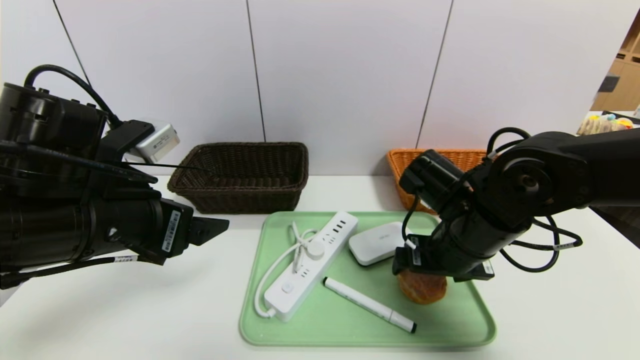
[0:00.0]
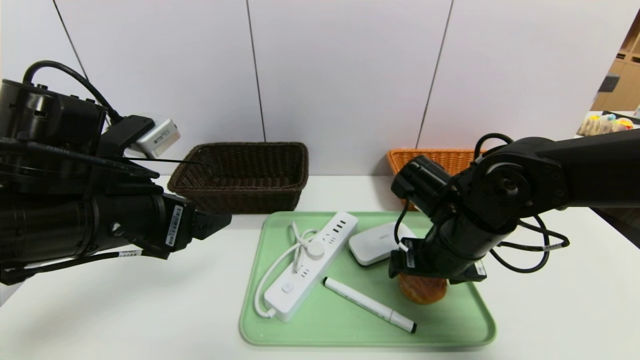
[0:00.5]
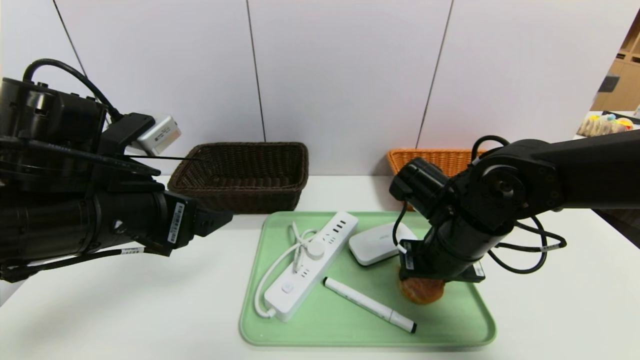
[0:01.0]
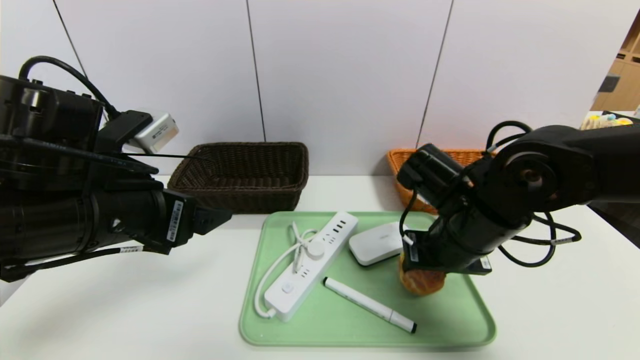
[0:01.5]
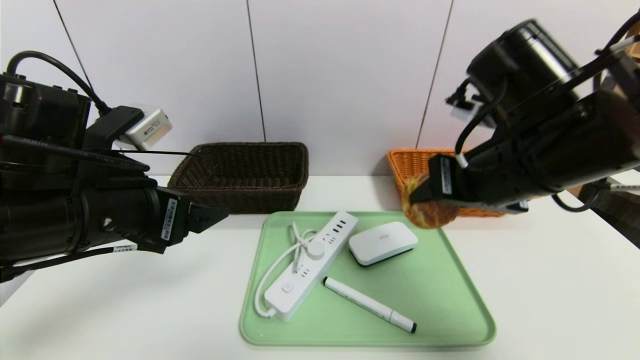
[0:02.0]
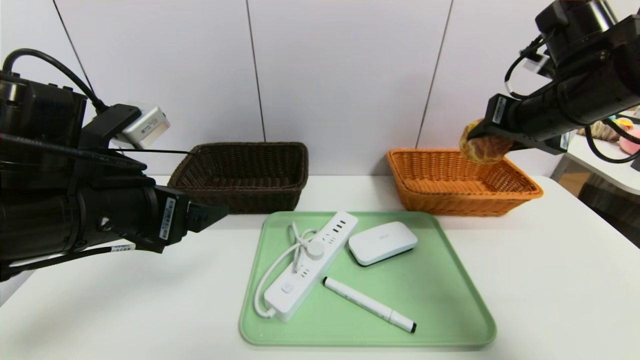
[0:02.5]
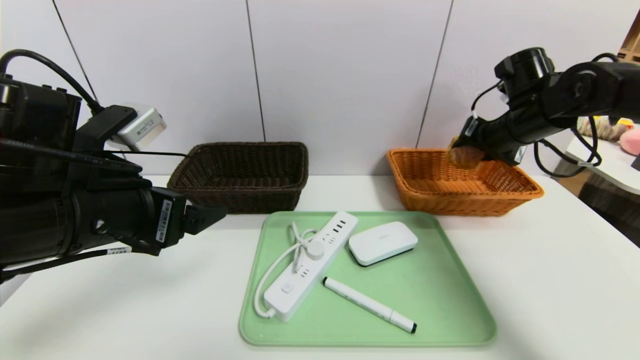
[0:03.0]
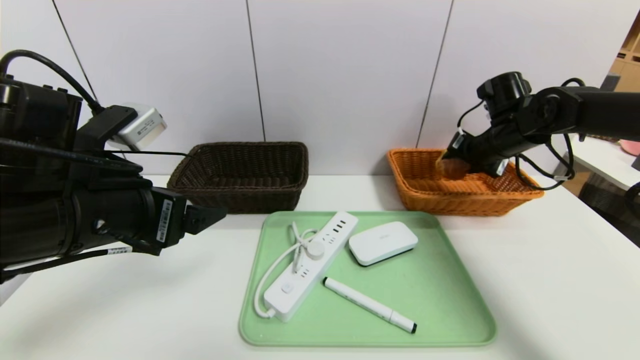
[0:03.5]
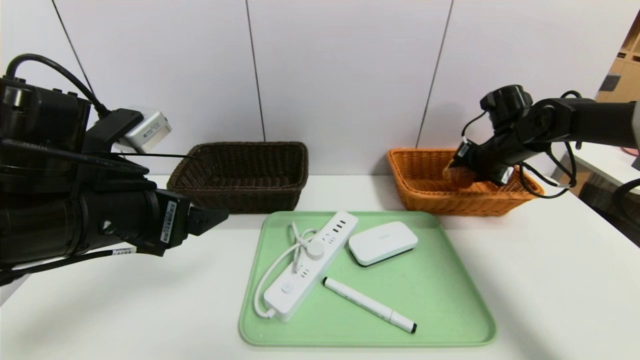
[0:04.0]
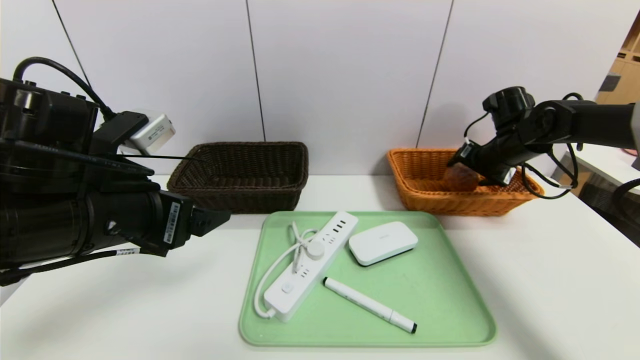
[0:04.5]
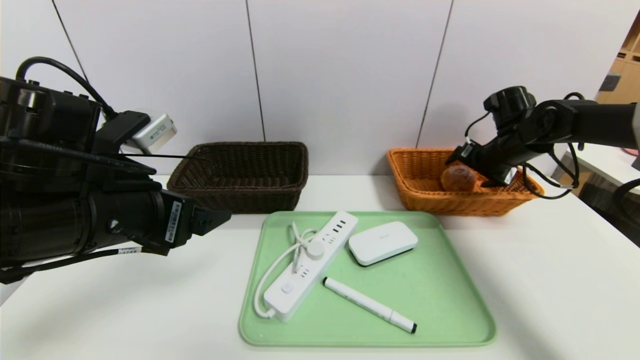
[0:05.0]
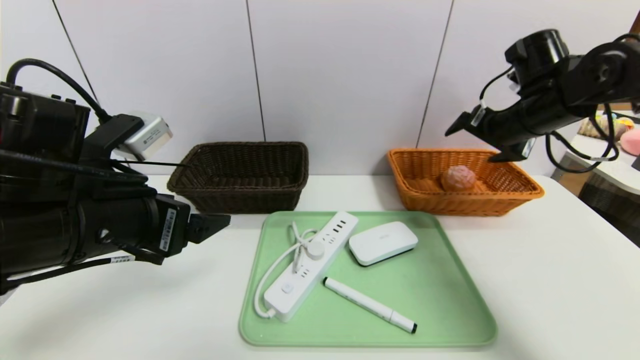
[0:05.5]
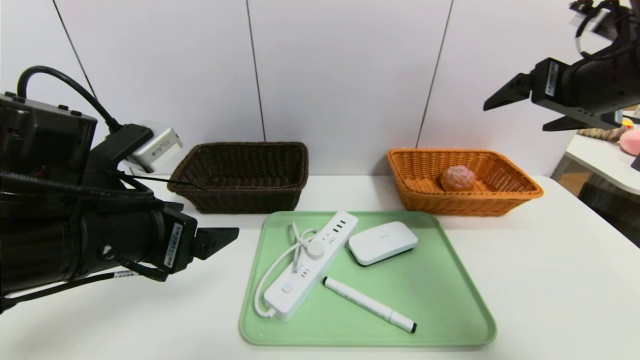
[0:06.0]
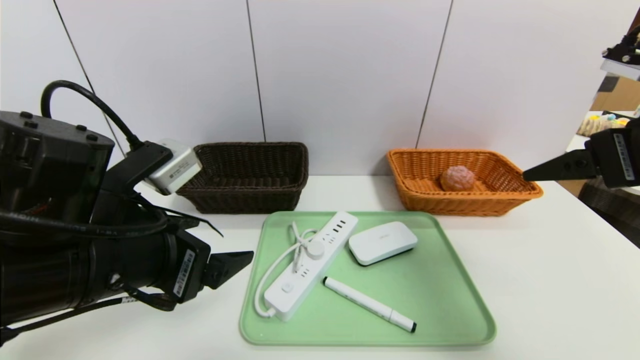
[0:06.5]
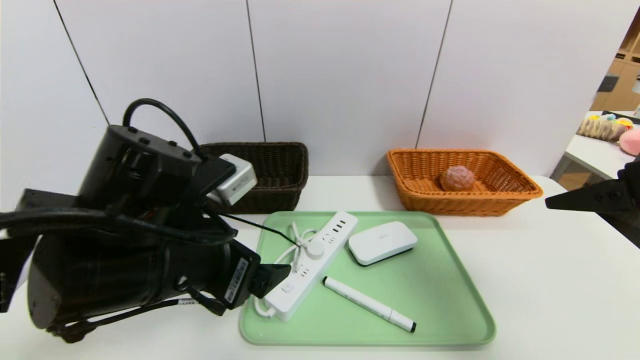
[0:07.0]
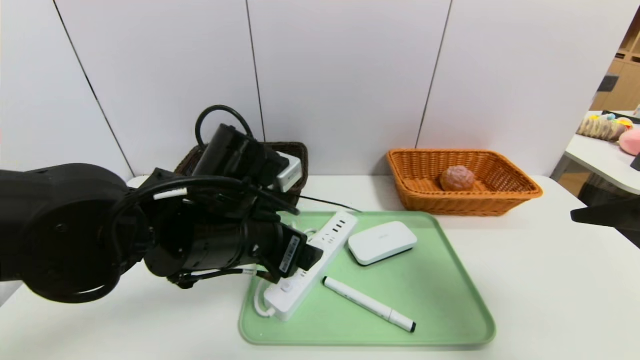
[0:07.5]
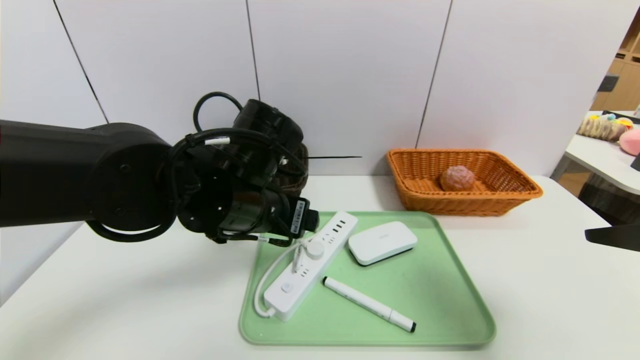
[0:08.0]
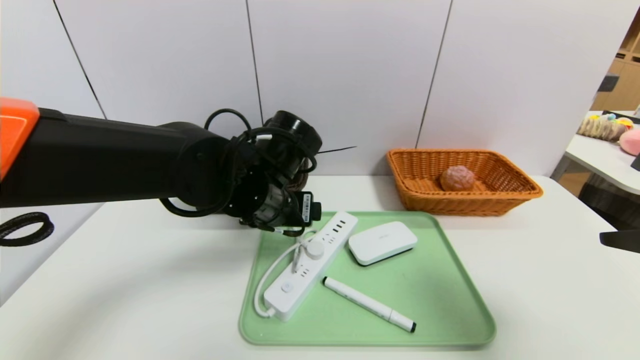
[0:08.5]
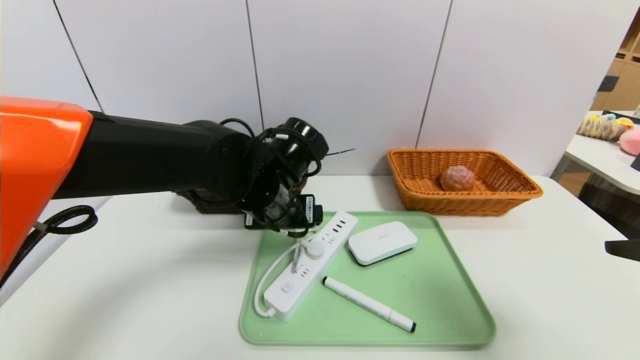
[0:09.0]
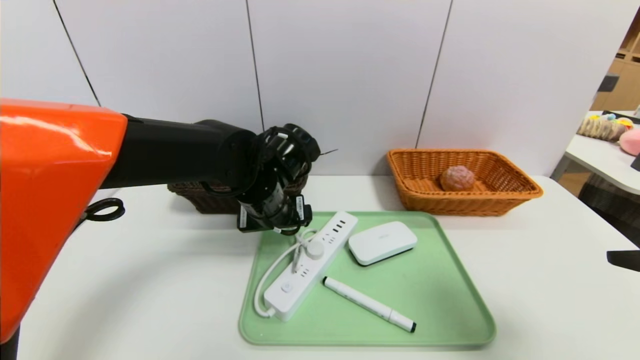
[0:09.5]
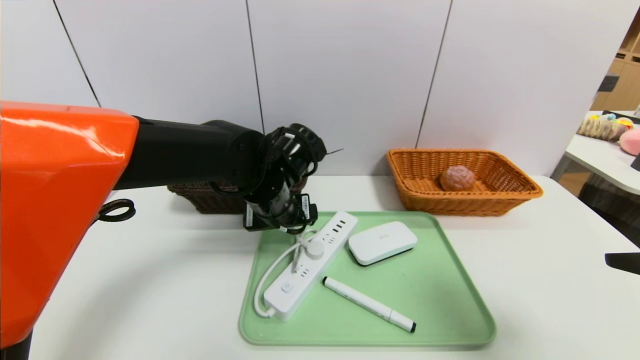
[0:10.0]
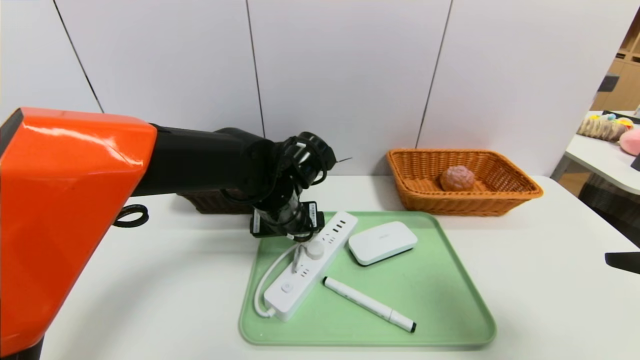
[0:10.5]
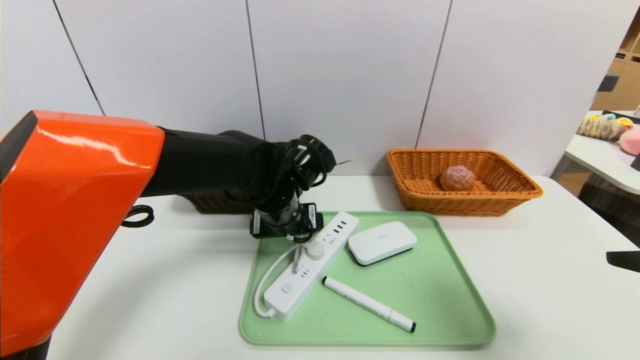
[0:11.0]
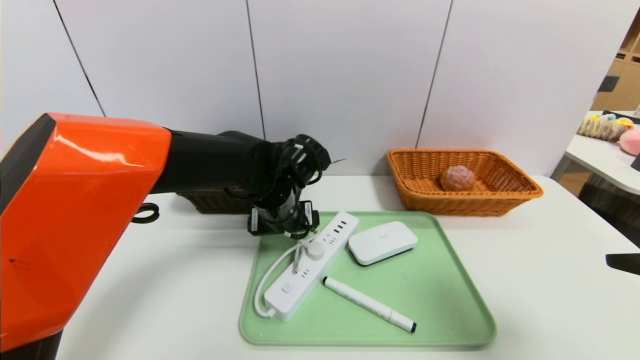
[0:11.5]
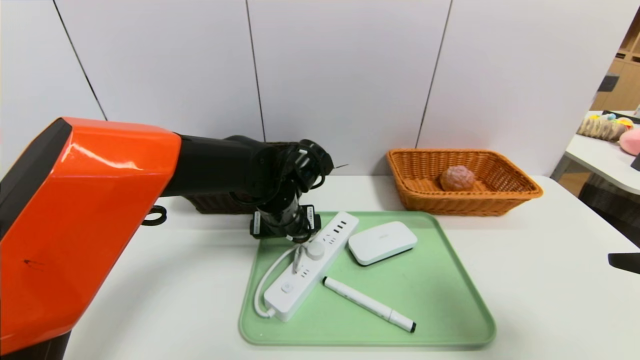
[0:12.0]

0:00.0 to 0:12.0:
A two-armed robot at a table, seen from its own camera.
Task of the whole recording: place the food in the right basket with the right gripper, and place the non food items in the left basket with the left gripper.
Step, 0:00.0 to 0:05.5: Grasp the round bread and put it in the right basket.
0:00.0 to 0:02.0: The right gripper is displaced upward by some 15 cm, and closes.
0:02.0 to 0:04.0: The right gripper goes roughly 25 cm forward, to the right and downward.
0:04.0 to 0:06.0: The right gripper is displaced backward and upward by about 25 cm, and opens.
0:06.0 to 0:08.0: The left gripper travels to the right and forward by roughly 15 cm. Meanwhile the right gripper goes approximately 15 cm backward.
0:08.0 to 0:10.0: The left gripper moves forward, about 5 cm.
0:10.0 to 0:12.0: There are only small adjustments of the grippers.

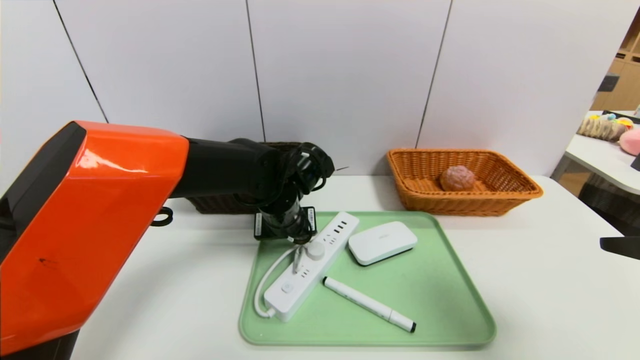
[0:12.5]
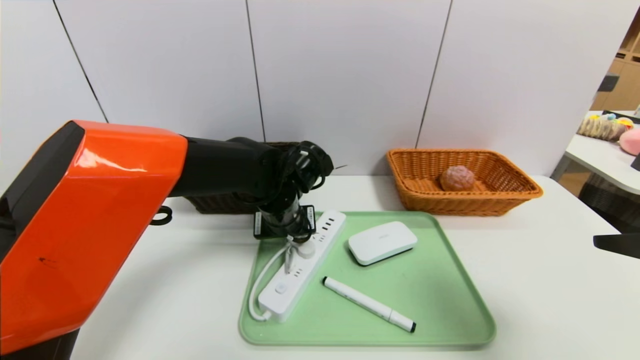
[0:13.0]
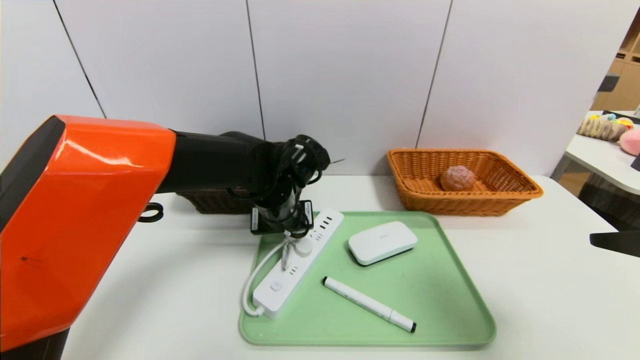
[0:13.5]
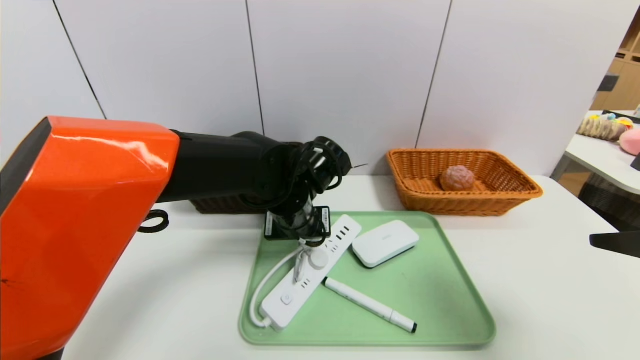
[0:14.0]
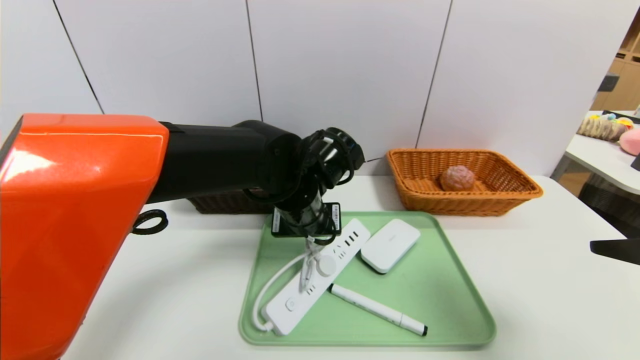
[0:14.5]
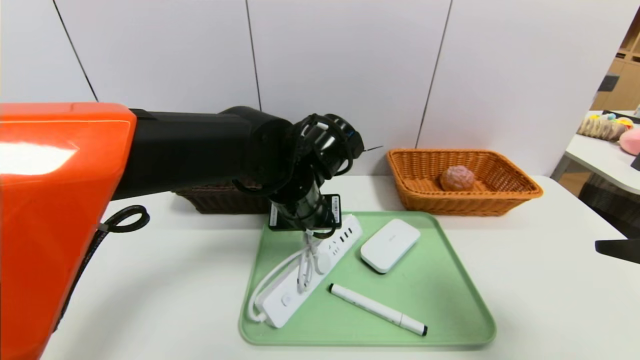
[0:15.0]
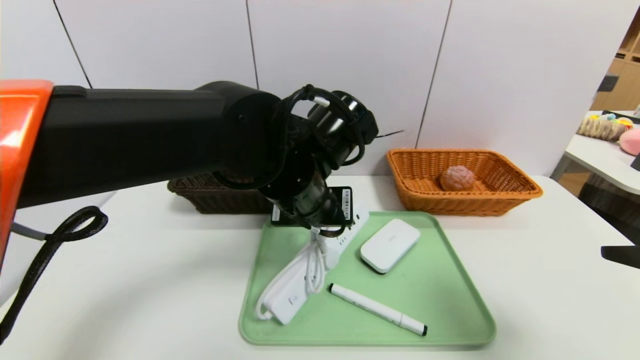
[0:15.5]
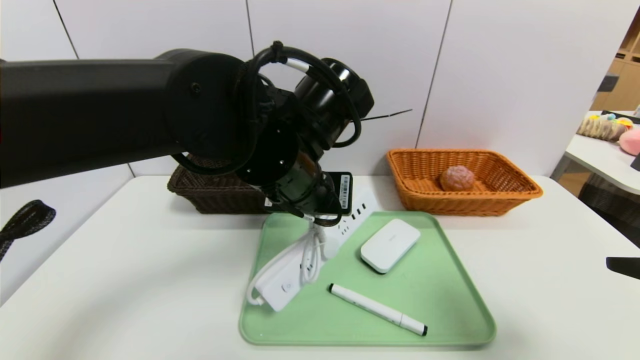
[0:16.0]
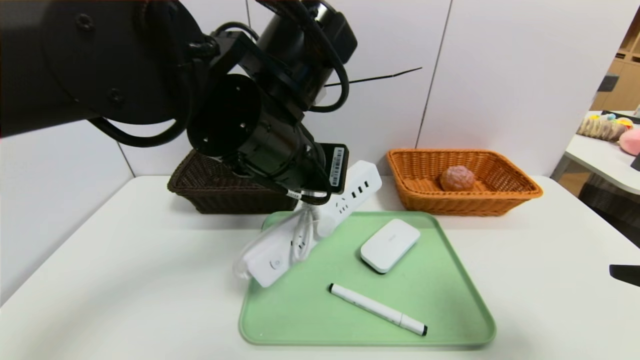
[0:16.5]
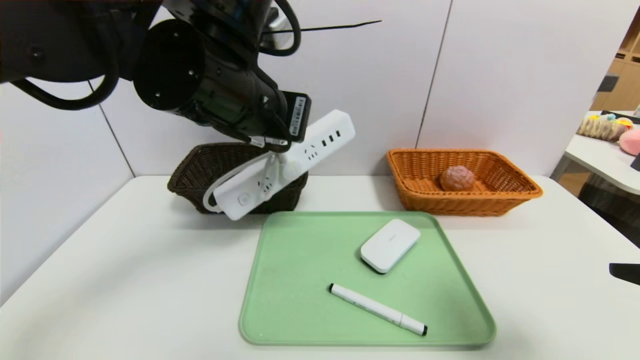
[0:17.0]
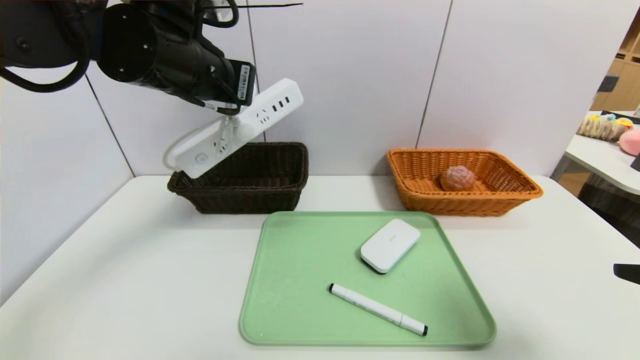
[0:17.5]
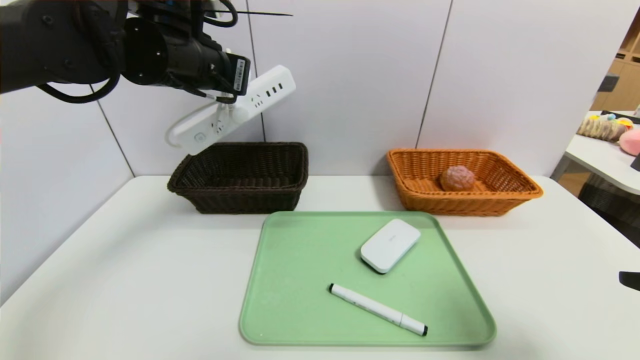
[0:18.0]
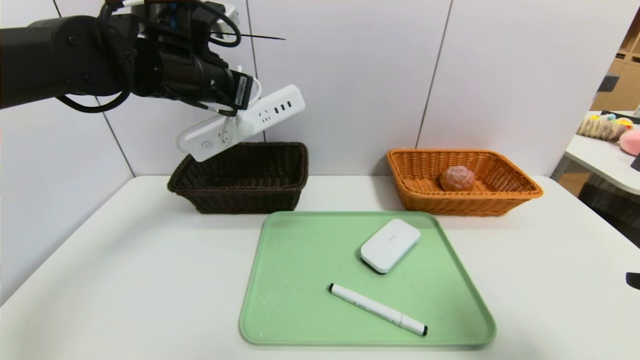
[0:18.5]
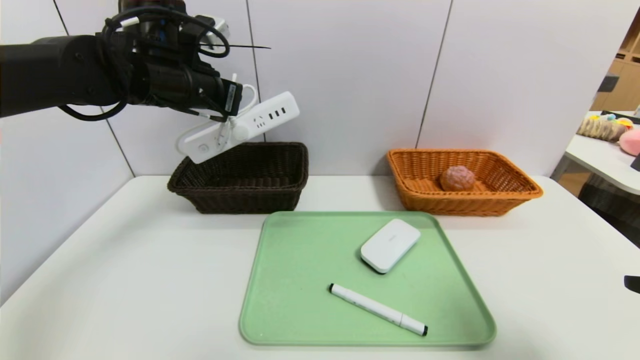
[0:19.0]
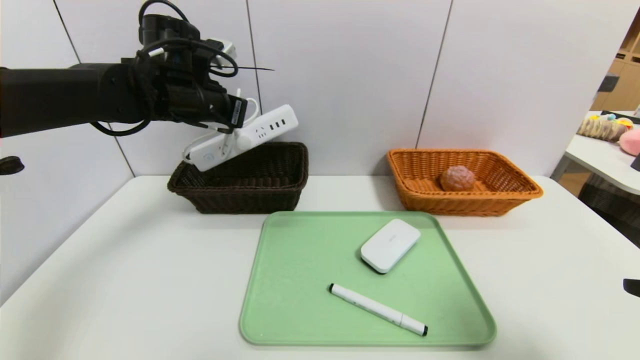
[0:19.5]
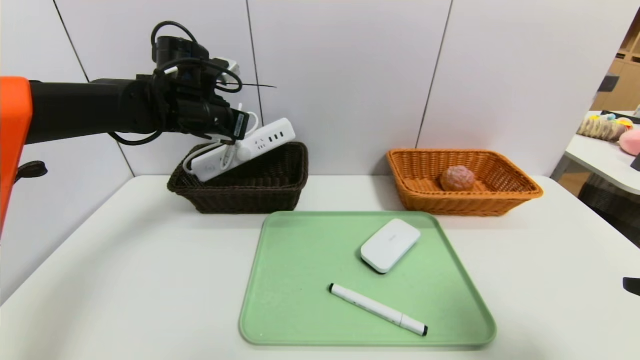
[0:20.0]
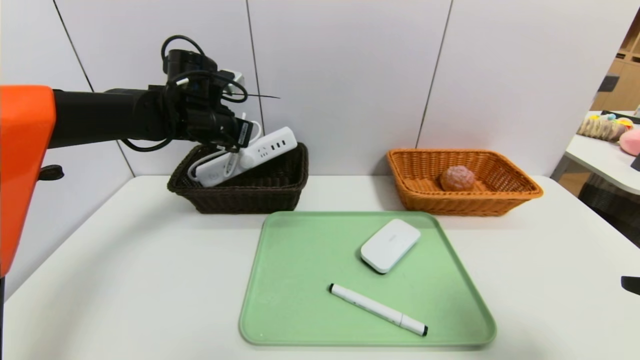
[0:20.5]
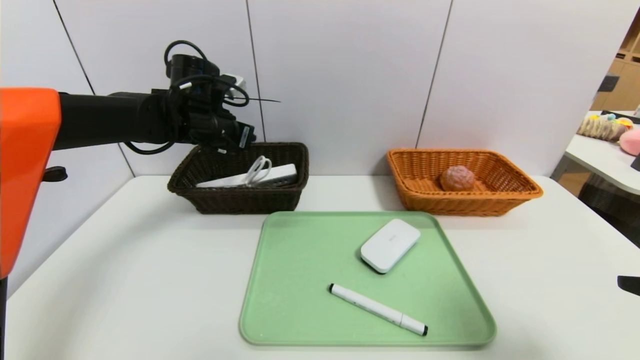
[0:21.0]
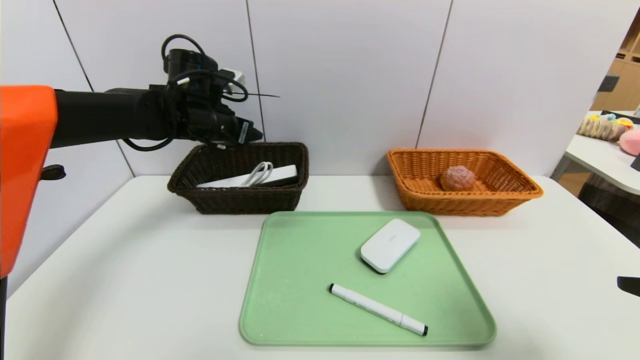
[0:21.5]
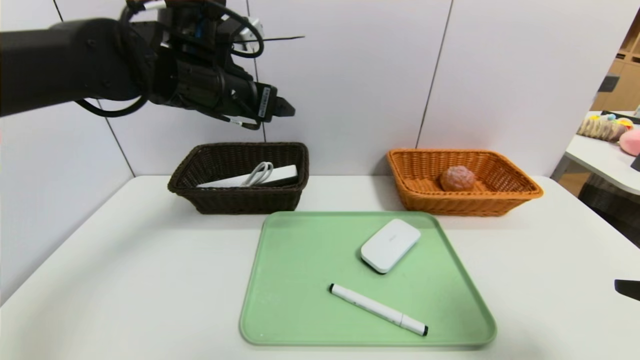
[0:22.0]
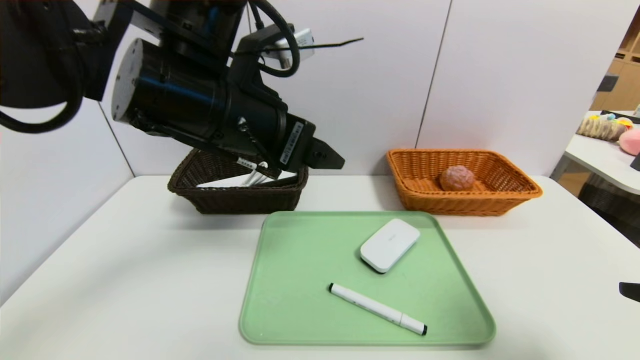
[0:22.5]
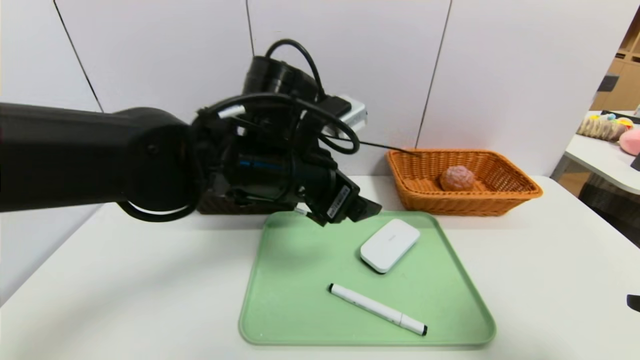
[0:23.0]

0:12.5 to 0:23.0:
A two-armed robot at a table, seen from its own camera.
Task of the whole recording: place the food in the right basket with the right gripper, and place the non food items in the left basket with the left gripper.
Step, 0:12.5 to 0:22.5: Grasp the power strip and put it in the left basket.
0:12.5 to 0:14.5: The left gripper ends up some 5 cm from where it was, and closes.
0:14.5 to 0:16.5: The left gripper travels upward and backward by approximately 15 cm.
0:16.5 to 0:19.0: The left gripper moves to the left and forward, about 20 cm.
0:19.0 to 0:21.0: The left gripper goes some 10 cm downward and forward, and opens up.
0:21.0 to 0:23.0: The left gripper heads backward and to the right, covering roughly 20 cm, and opens up.
